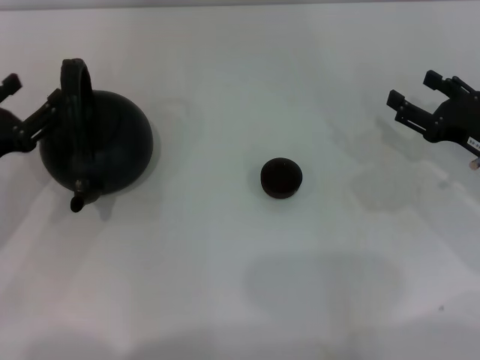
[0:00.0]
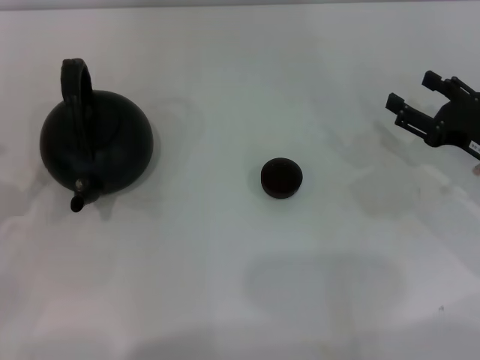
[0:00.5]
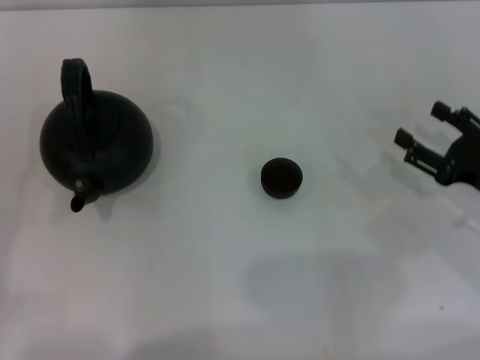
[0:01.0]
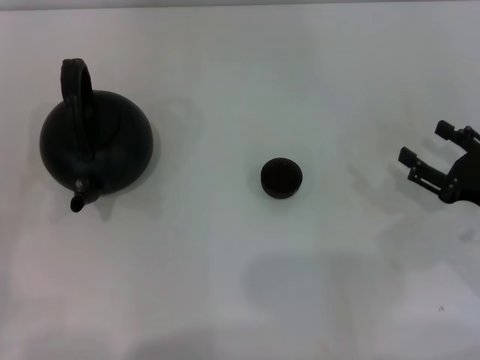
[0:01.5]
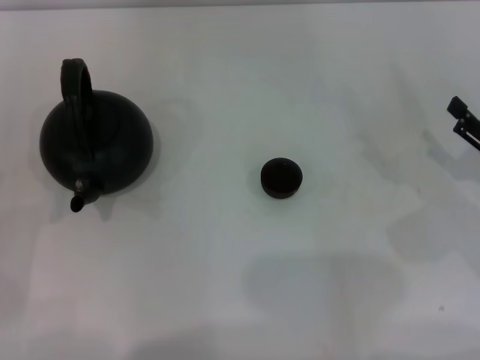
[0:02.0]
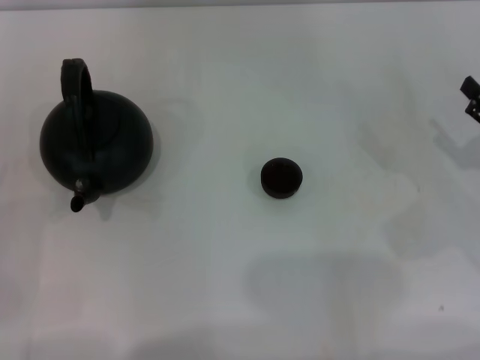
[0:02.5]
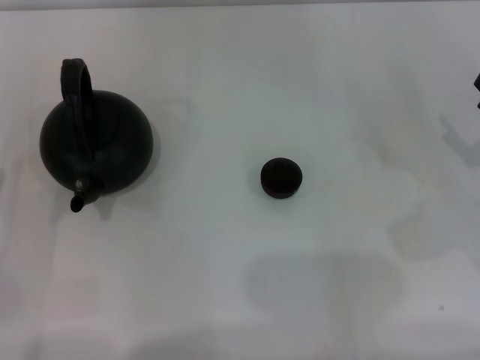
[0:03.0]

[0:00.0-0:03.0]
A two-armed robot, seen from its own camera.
Task of the whole recording: Grasp the handle of the teapot with one hand and pour tea into the teacup.
0:00.0 to 0:01.5: The left gripper travels backward and to the left by about 15 cm. The right gripper travels backward by approximately 5 cm.
